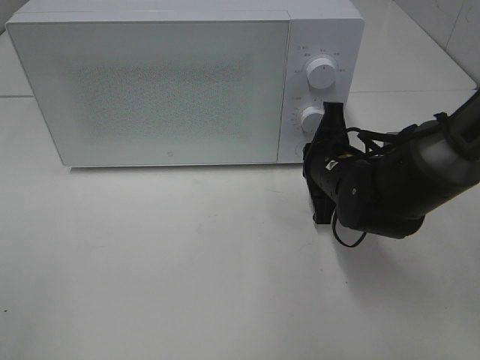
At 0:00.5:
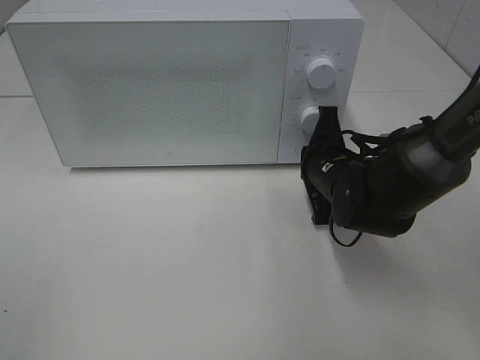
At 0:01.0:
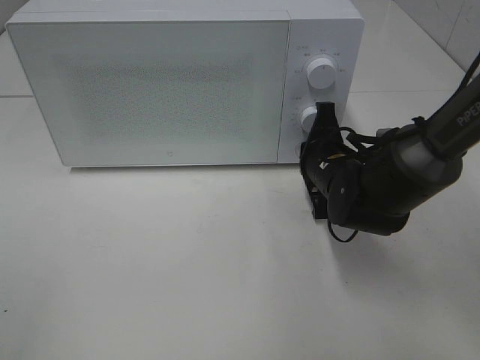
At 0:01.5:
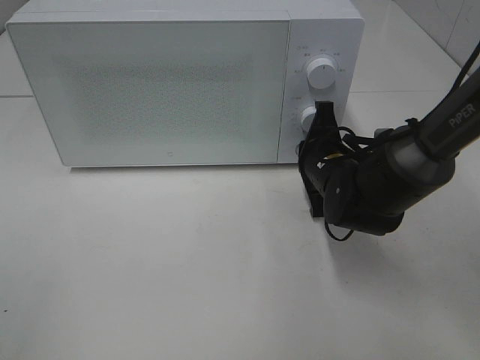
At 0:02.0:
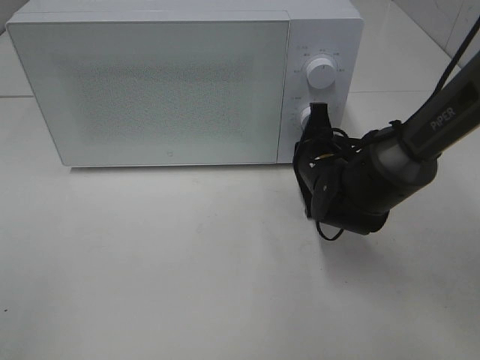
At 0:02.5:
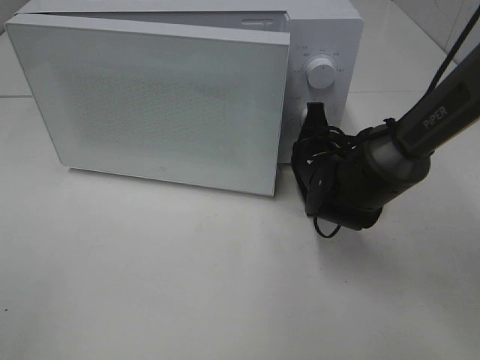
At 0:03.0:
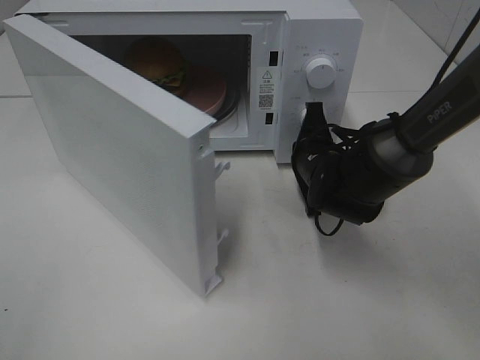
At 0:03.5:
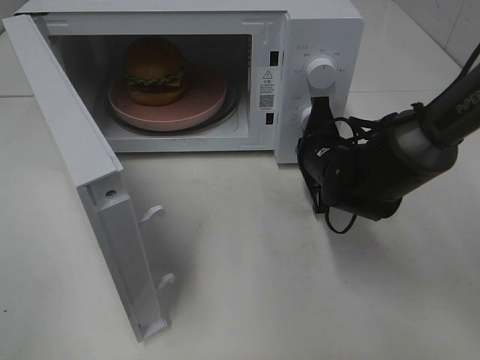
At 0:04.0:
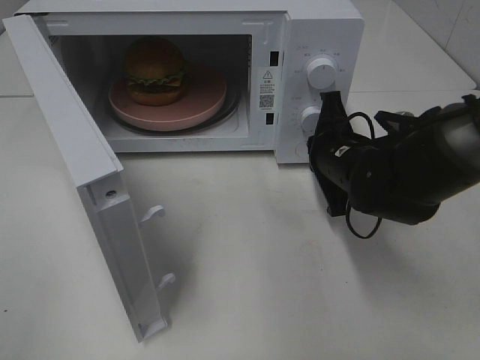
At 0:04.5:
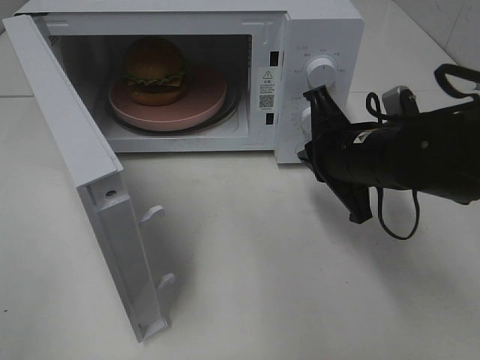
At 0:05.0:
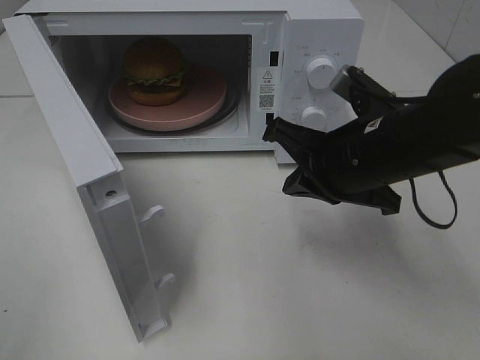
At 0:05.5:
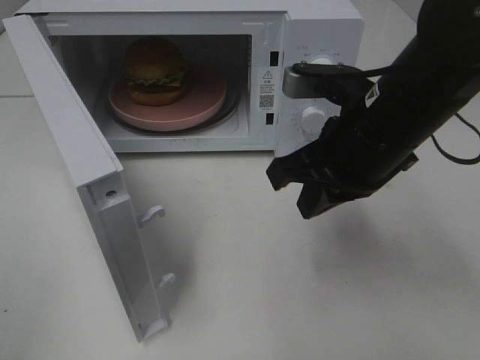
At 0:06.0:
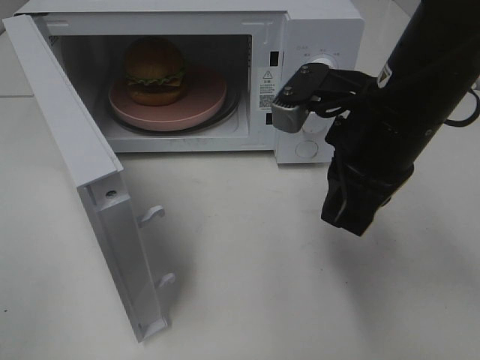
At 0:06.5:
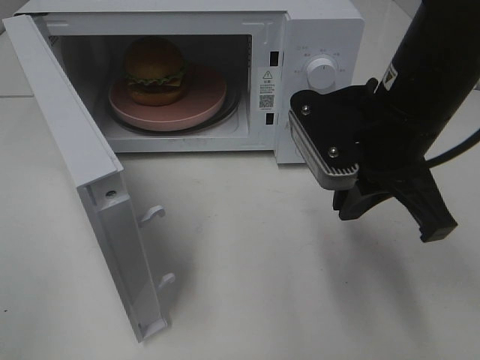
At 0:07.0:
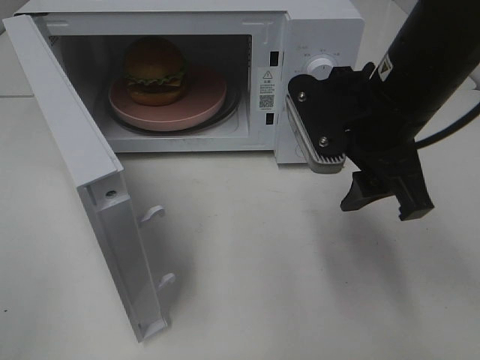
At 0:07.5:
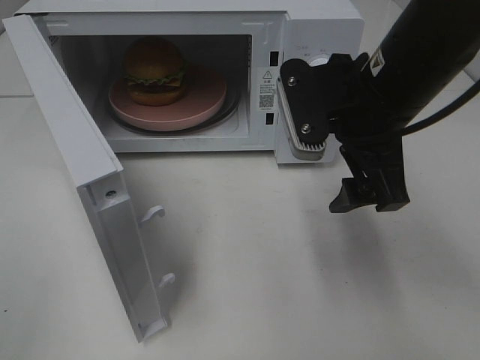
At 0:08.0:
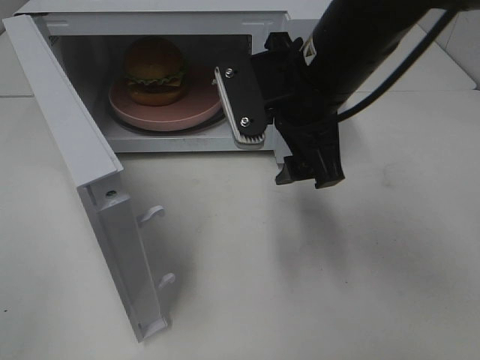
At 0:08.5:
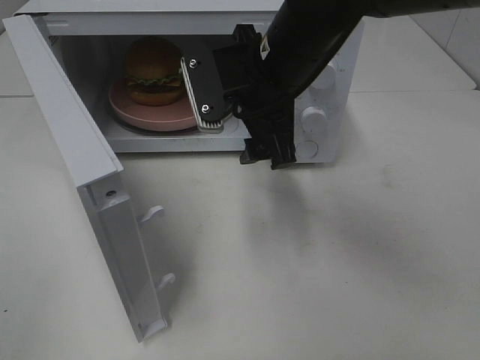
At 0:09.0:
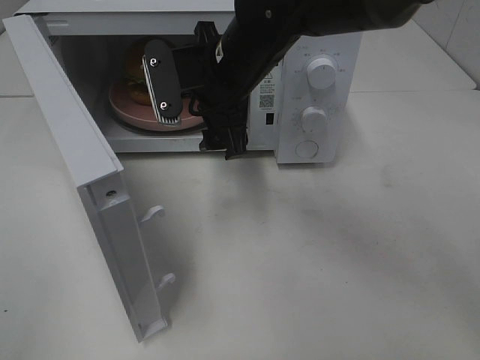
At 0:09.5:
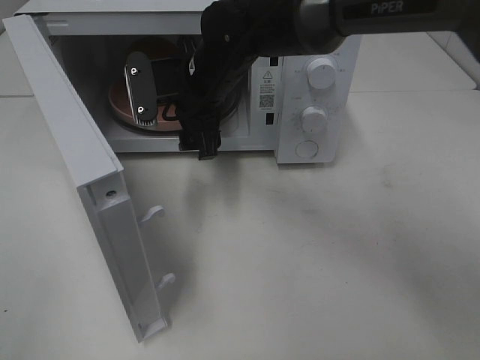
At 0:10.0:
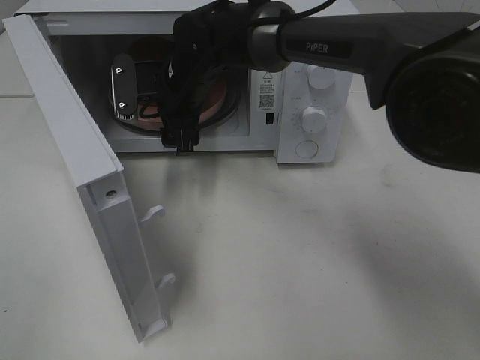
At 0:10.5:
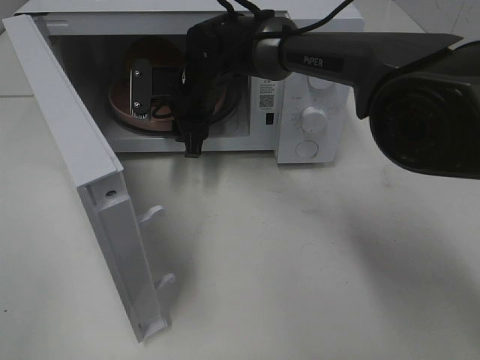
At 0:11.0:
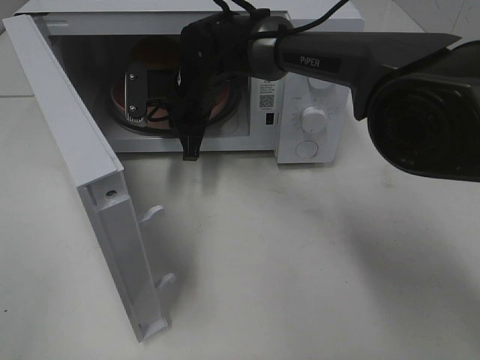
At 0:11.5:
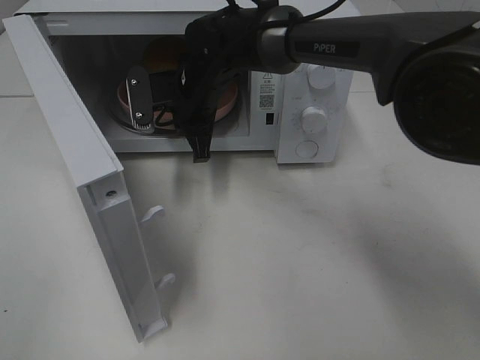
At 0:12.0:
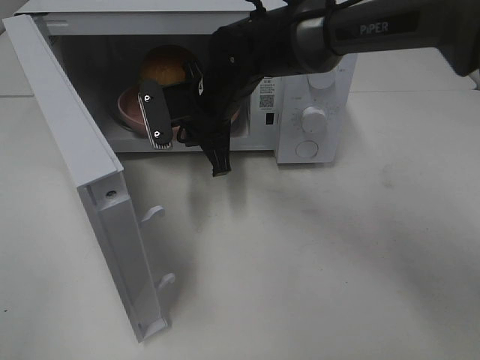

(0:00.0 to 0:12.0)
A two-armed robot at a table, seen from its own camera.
Task of the whole recording: Heat the burger.
Step, 0:00.0 - 0:04.0: Right hand: press the switch.
Step, 0:04.5 - 0:11.0: Right hand: grab the plate with the hamburger.
0:00.0 - 0:02.0: The grippers move only a little.
0:04.0 - 0:06.0: The right gripper moves upward and backward, some 15 cm.
0:06.0 - 0:08.0: The right gripper is displaced to the left by approximately 5 cm, and opens up.
0:08.0 - 0:10.0: The right gripper travels forward, to the left and downward by roughly 20 cm.
0:10.0 - 0:12.0: The right gripper shifts by roughly 5 cm, and closes.

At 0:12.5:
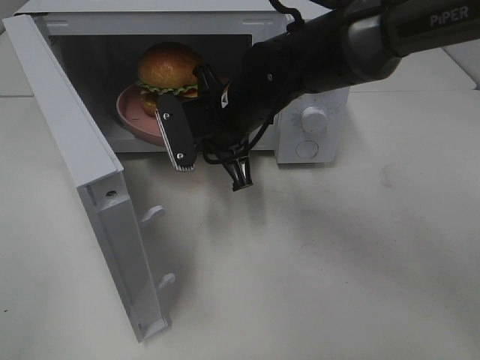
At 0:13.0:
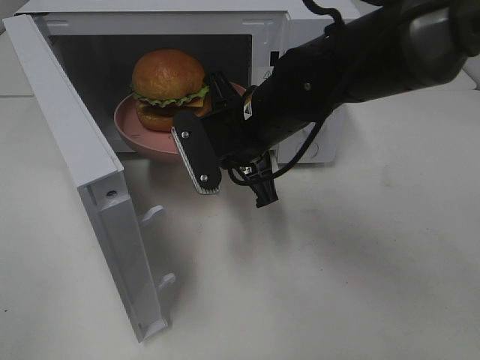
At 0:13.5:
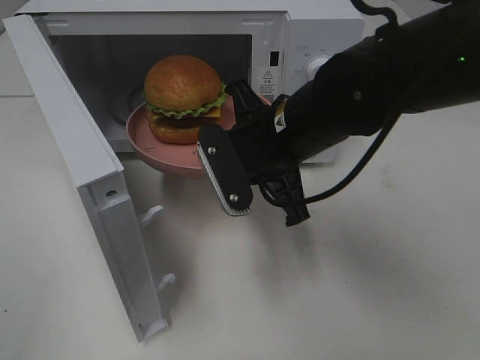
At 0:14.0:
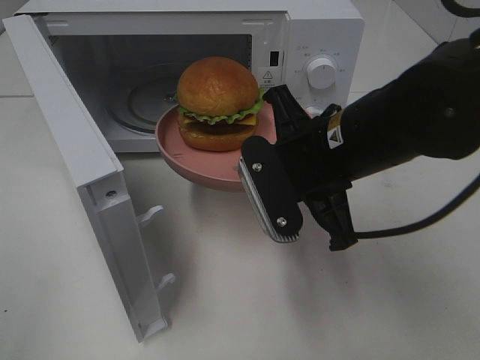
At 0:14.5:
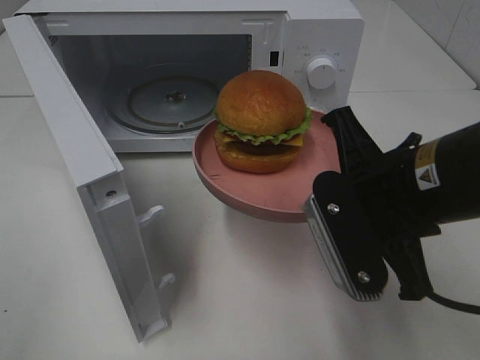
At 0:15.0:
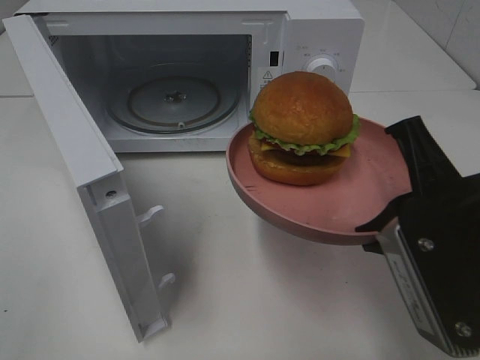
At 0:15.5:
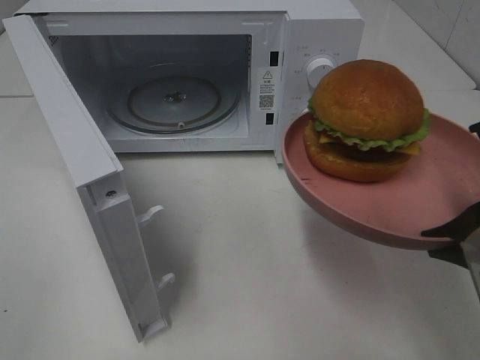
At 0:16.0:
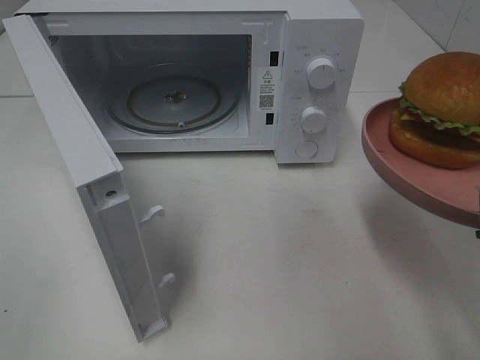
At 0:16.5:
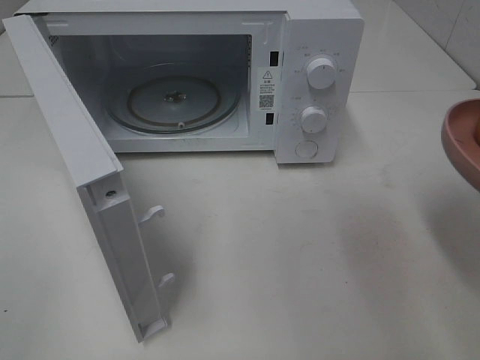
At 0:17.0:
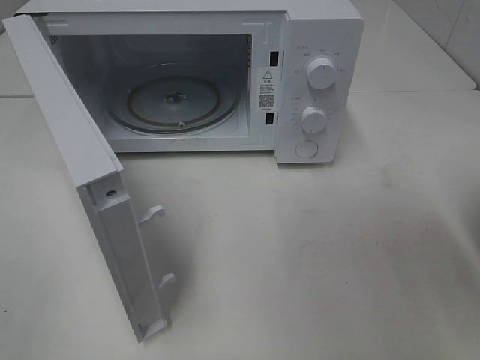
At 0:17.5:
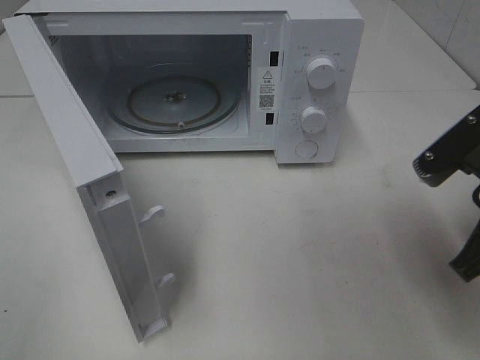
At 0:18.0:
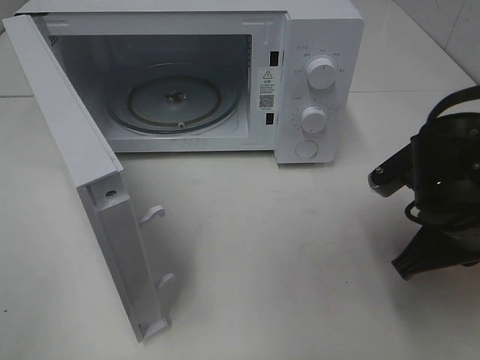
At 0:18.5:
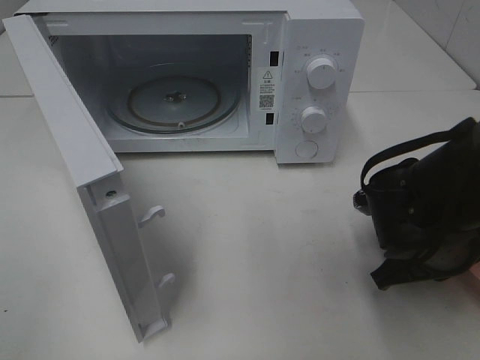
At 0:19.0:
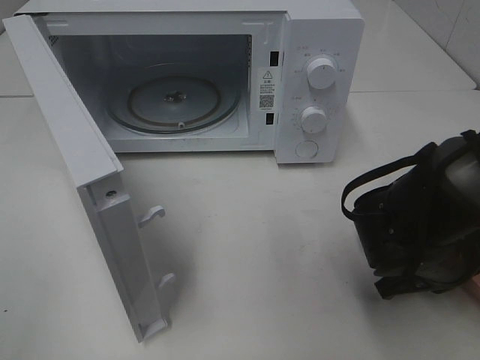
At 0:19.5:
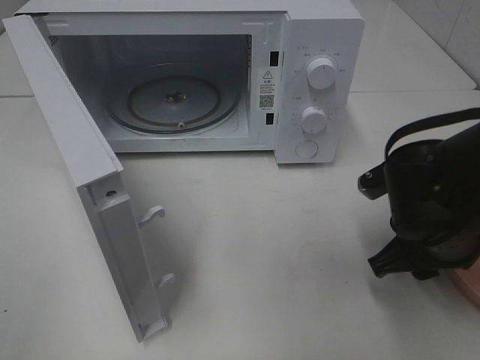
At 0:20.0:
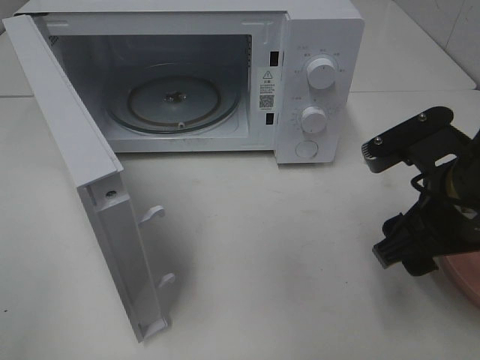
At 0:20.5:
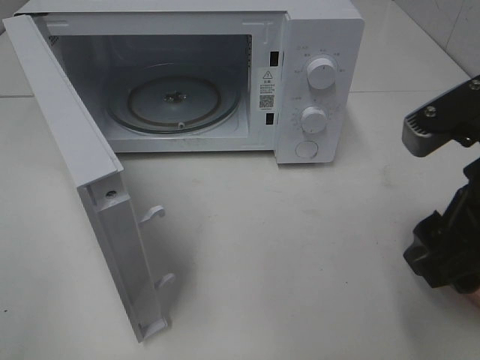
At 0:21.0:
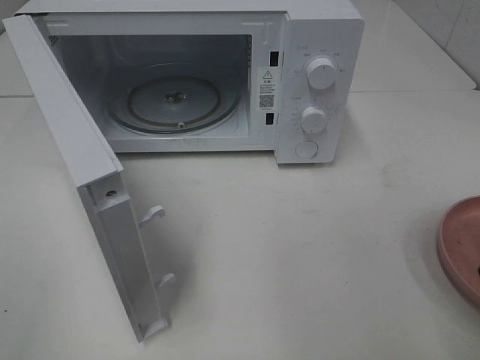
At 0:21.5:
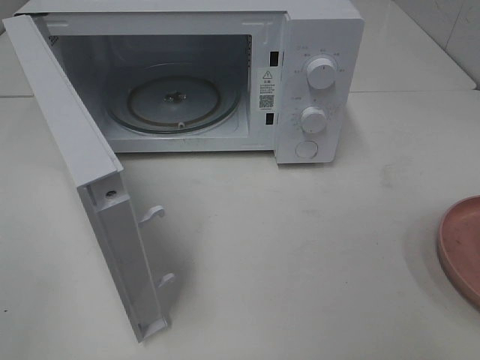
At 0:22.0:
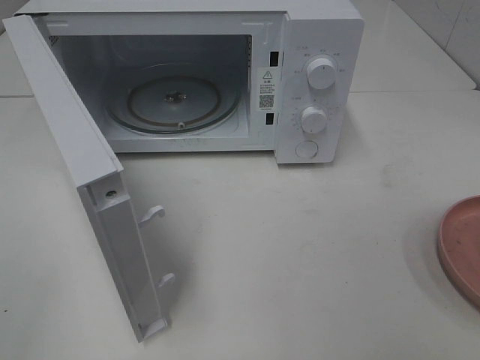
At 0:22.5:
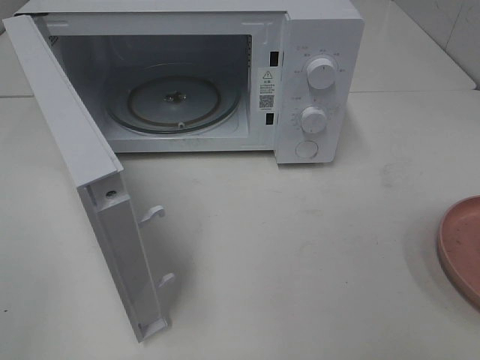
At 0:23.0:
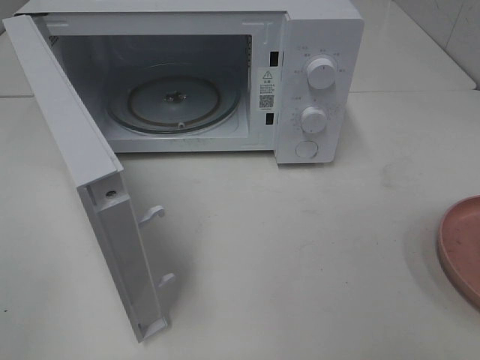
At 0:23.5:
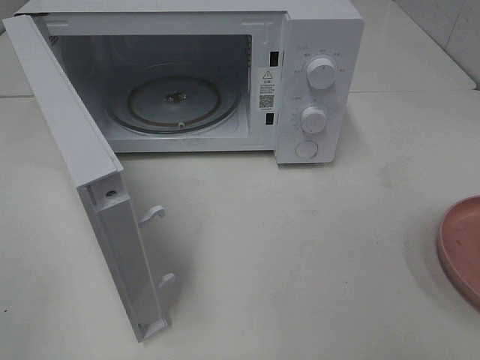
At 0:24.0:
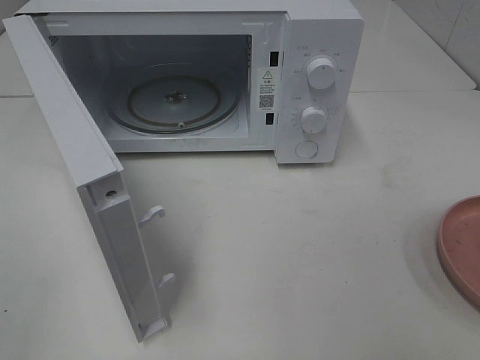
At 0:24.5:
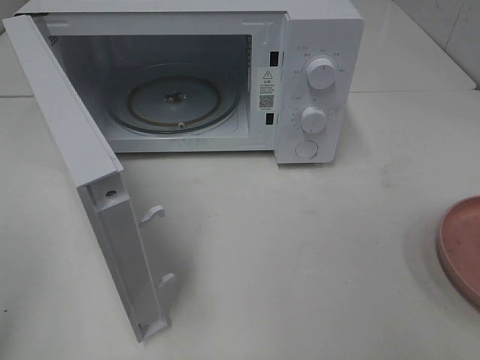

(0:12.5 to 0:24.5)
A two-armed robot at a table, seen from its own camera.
Task of the whole recording: Heat the burger.
Step, 0:12.5 - 0:19.5: Right hand: place the plate on the table.
0:12.5 - 0:14.5: The right gripper is displaced backward and to the right by approximately 20 cm.
0:14.5 - 0:16.5: The right gripper travels to the right and backward by about 15 cm.
0:16.5 - 0:18.5: The right gripper shifts approximately 20 cm downward, forward and to the left.
0:18.5 - 0:20.5: The right gripper is displaced upward and backward by roughly 15 cm, and opens up.
0:20.5 - 0:22.5: The right gripper shifts roughly 20 cm backward and to the right.

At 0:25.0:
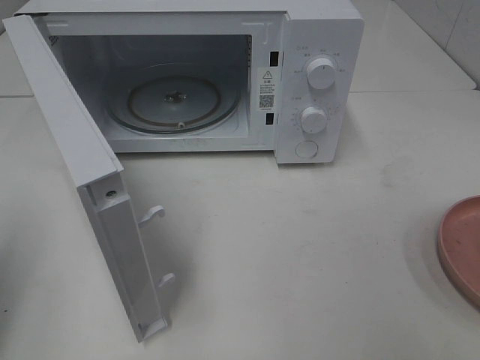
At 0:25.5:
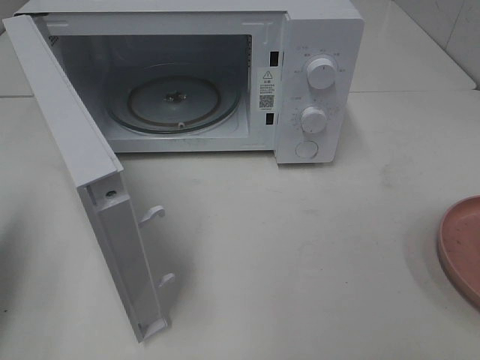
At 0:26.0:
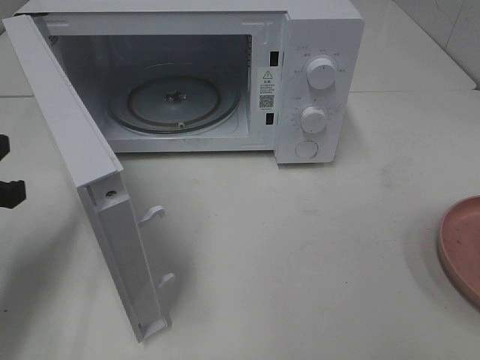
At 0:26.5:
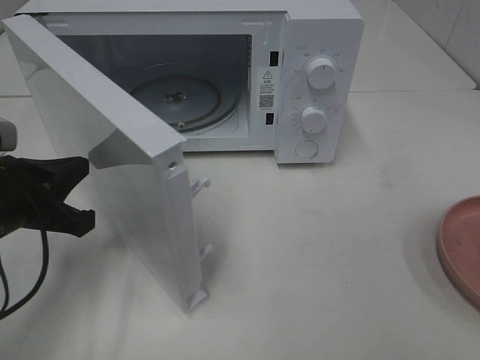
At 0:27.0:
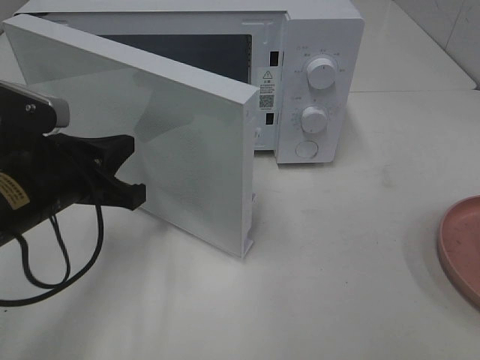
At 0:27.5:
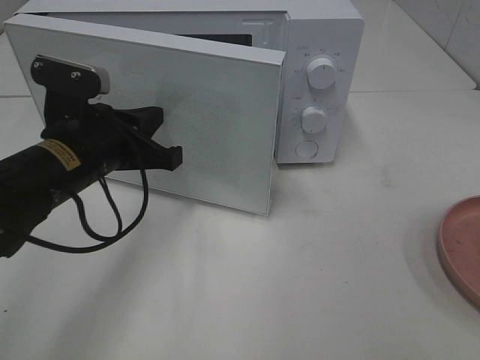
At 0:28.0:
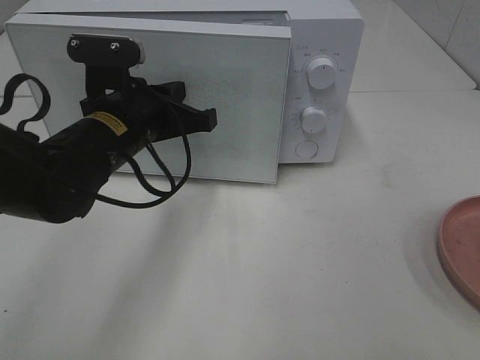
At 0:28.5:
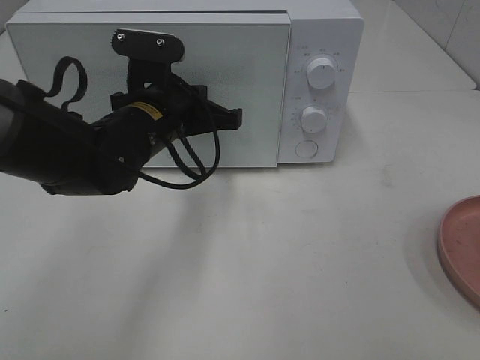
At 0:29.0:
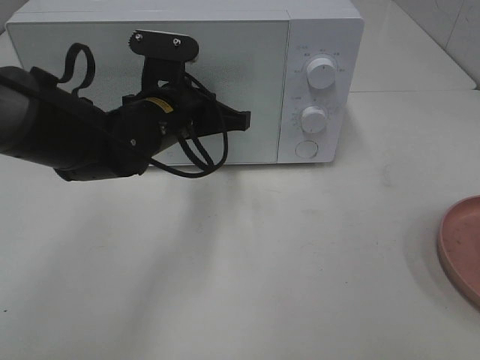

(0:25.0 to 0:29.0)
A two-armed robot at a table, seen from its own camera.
Task of the whole recording: Heat the burger.
0:25.0 - 0:27.0: The left gripper shifts some 20 cm to the right, downward and forward.
0:27.0 - 0:29.0: The left gripper is displaced to the right and forward by roughly 15 cm.
